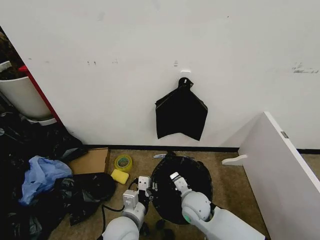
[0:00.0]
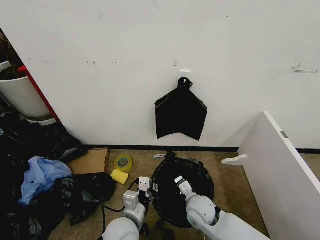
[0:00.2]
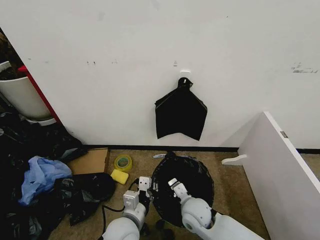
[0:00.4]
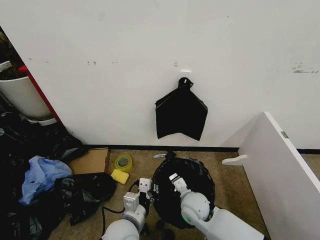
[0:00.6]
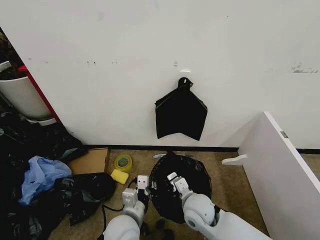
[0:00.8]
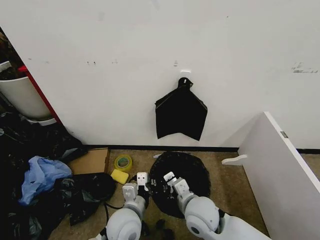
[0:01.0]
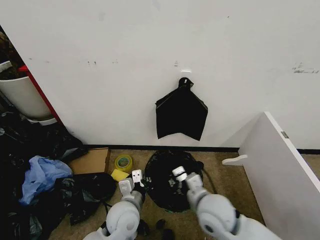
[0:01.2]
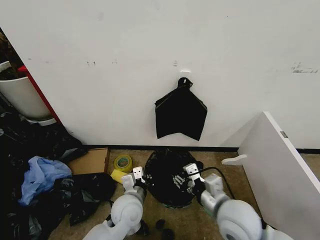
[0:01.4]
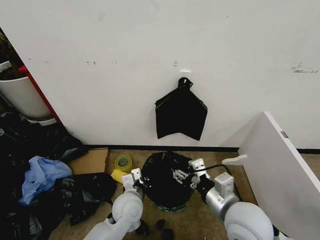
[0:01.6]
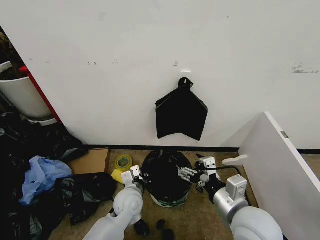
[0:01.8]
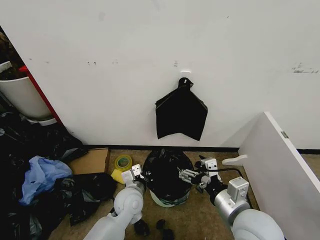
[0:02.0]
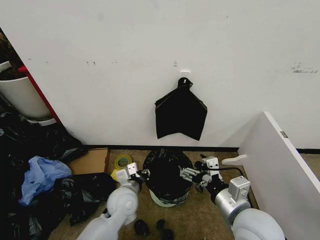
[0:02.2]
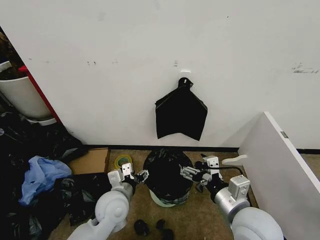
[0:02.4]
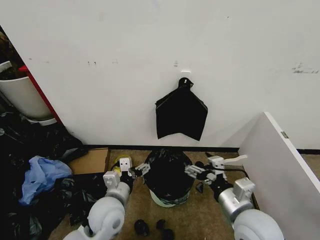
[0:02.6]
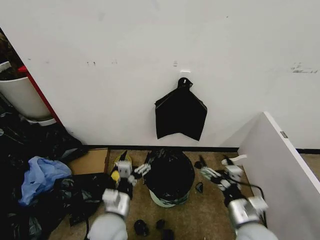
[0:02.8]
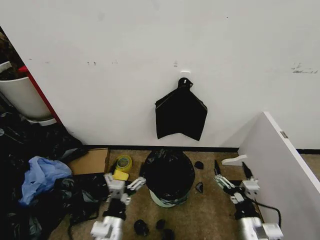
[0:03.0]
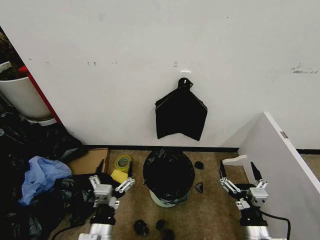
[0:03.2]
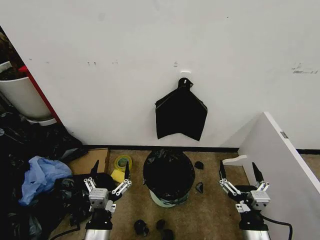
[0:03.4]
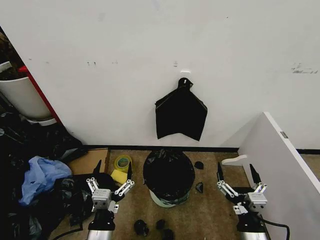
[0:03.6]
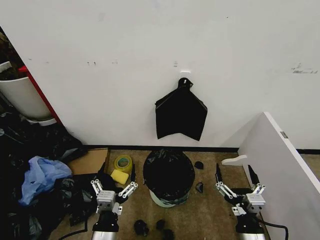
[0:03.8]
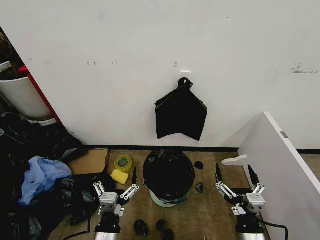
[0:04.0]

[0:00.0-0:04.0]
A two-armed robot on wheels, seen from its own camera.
Task of the whole recording: Place the garbage bag over the trash bin.
0:00.0 to 0:01.4: The left gripper is displaced forward by approximately 5 cm. The right gripper heads upward, backward and to the right, covering roughly 15 cm, and opens.
0:01.4 to 0:02.6: The left gripper ends up approximately 5 cm from where it was, and opens its fingers, while the right gripper opens its fingers.
0:02.6 to 0:04.0: The left gripper shifts about 15 cm backward; the right gripper is displaced downward and backward by approximately 15 cm.

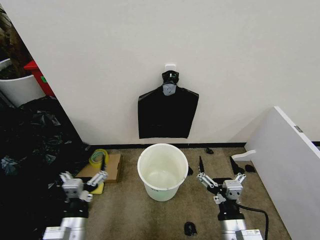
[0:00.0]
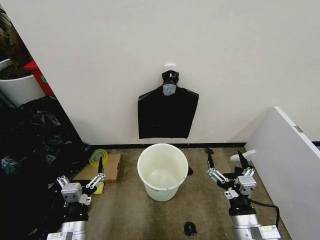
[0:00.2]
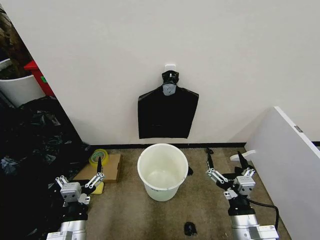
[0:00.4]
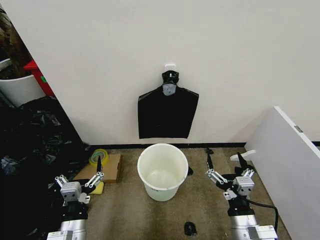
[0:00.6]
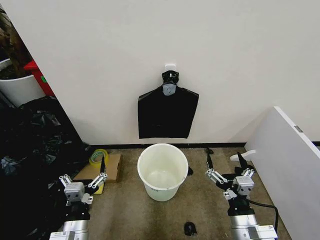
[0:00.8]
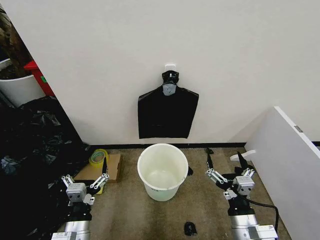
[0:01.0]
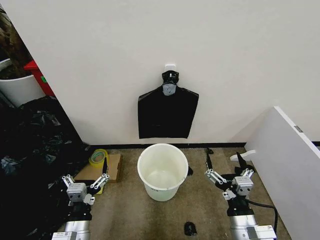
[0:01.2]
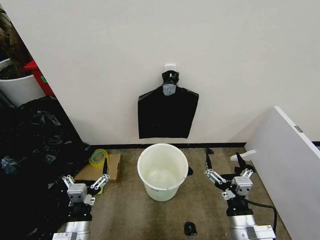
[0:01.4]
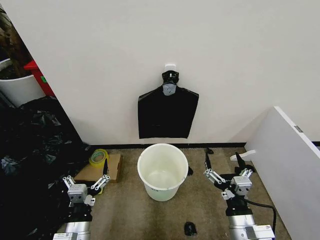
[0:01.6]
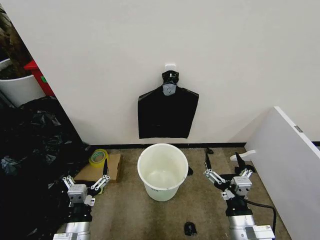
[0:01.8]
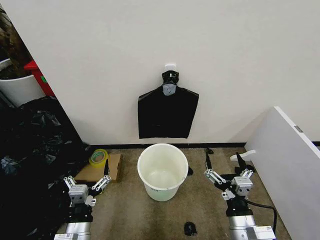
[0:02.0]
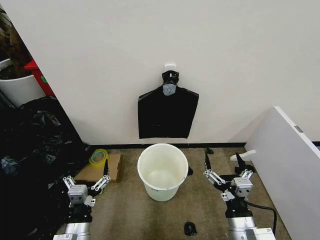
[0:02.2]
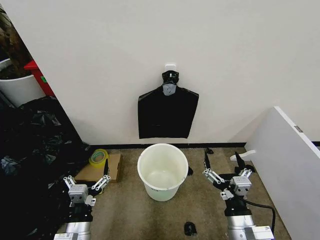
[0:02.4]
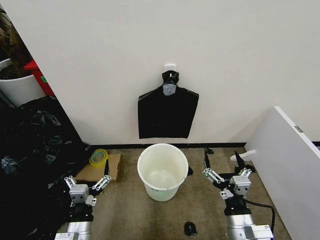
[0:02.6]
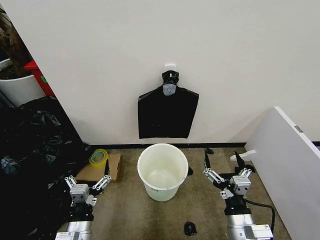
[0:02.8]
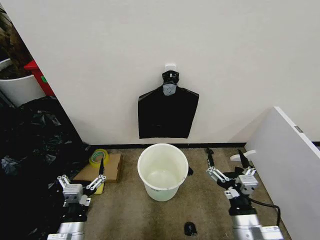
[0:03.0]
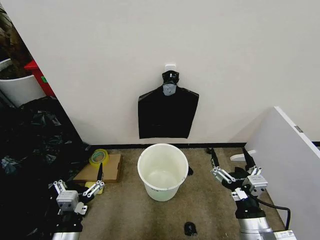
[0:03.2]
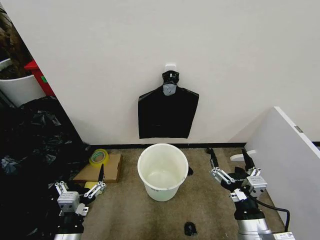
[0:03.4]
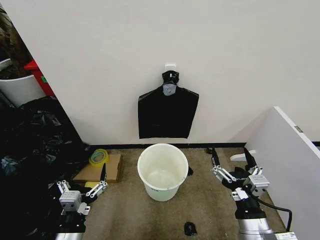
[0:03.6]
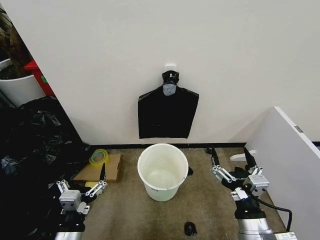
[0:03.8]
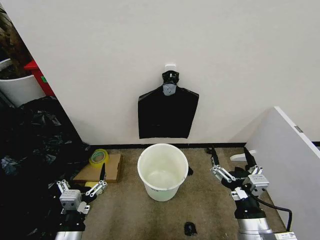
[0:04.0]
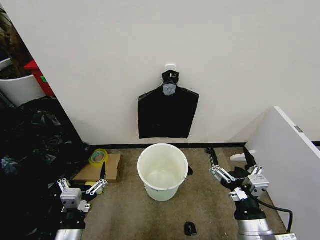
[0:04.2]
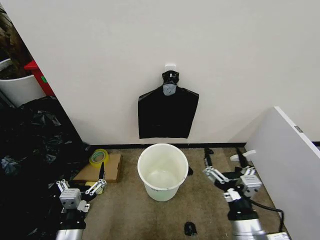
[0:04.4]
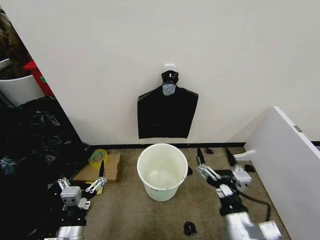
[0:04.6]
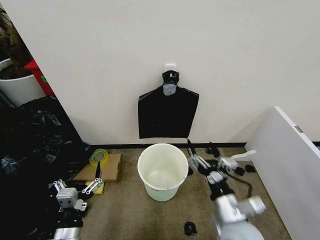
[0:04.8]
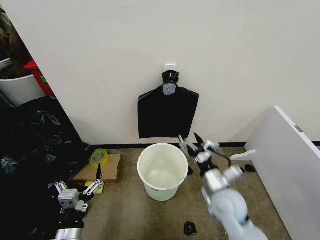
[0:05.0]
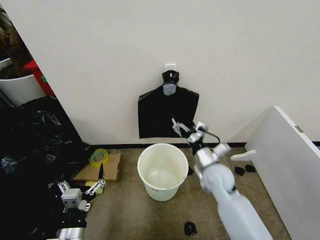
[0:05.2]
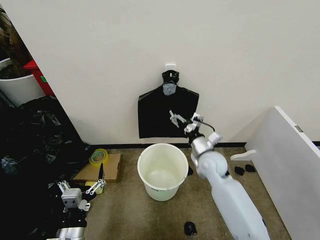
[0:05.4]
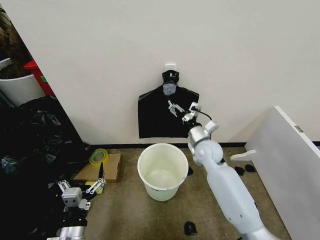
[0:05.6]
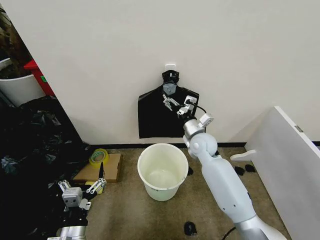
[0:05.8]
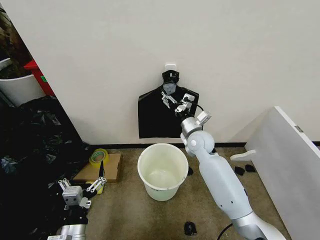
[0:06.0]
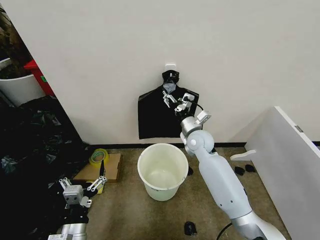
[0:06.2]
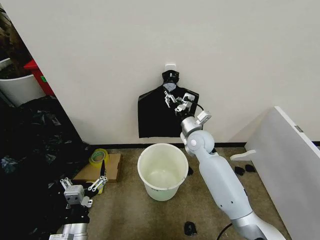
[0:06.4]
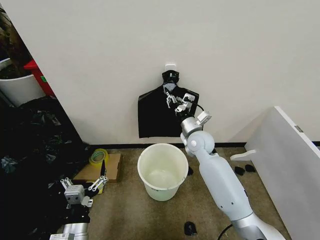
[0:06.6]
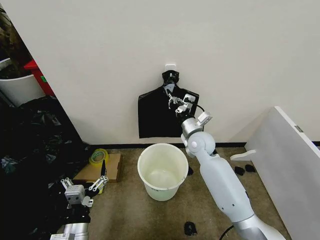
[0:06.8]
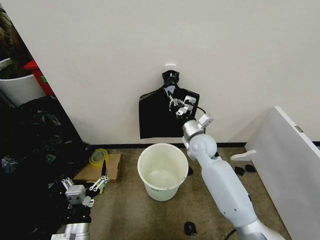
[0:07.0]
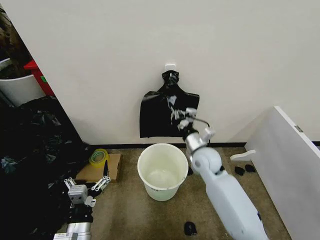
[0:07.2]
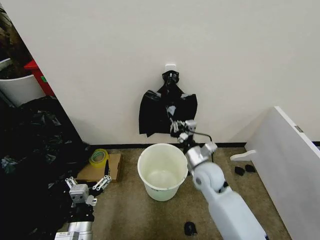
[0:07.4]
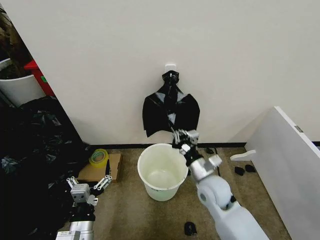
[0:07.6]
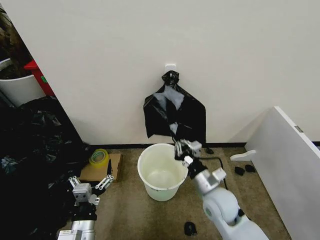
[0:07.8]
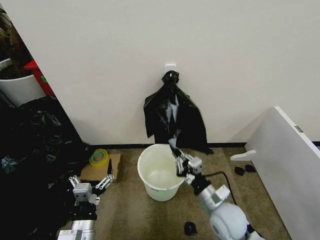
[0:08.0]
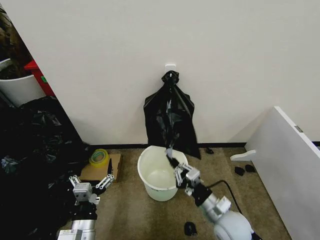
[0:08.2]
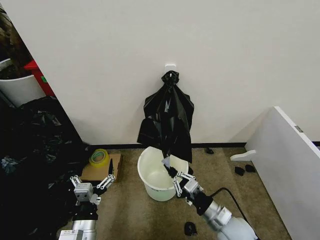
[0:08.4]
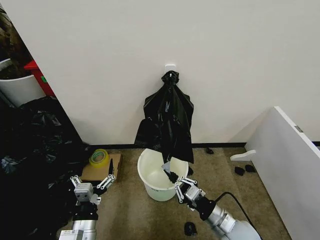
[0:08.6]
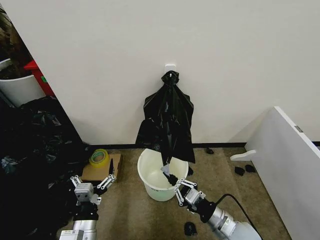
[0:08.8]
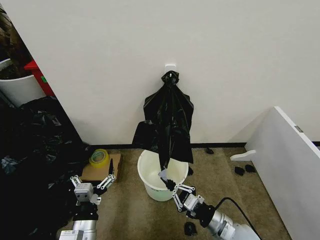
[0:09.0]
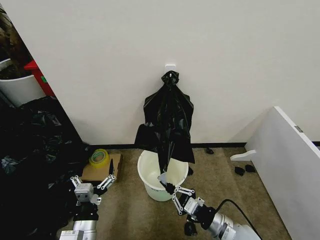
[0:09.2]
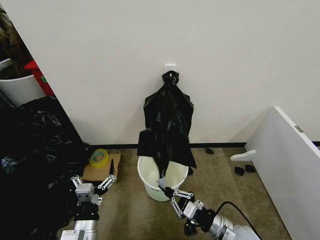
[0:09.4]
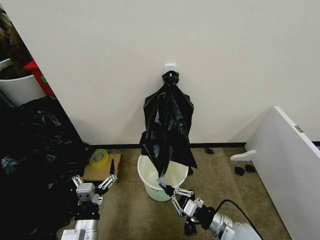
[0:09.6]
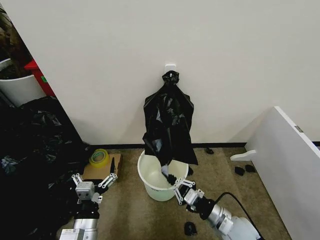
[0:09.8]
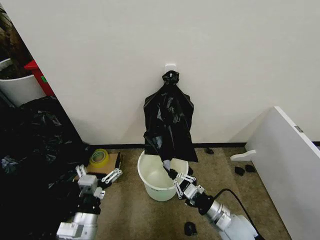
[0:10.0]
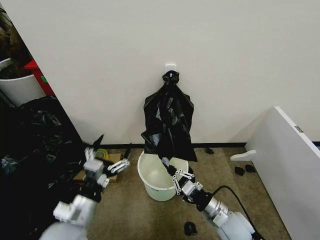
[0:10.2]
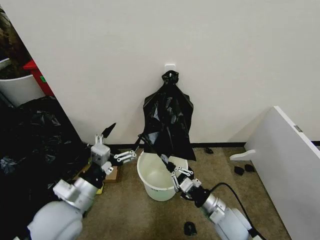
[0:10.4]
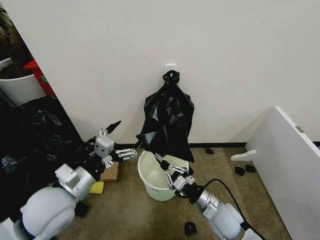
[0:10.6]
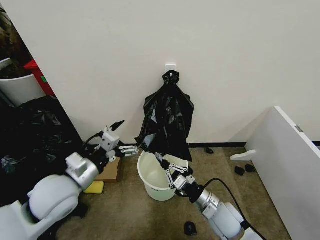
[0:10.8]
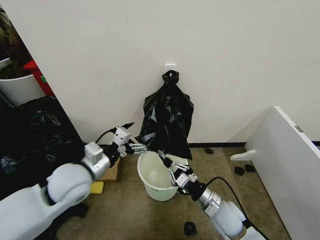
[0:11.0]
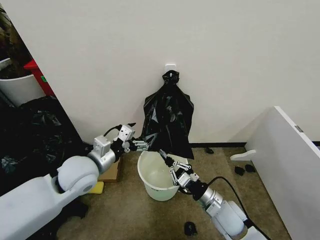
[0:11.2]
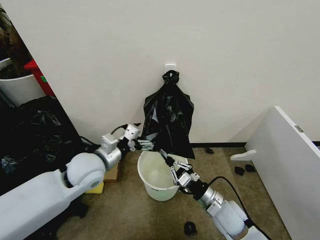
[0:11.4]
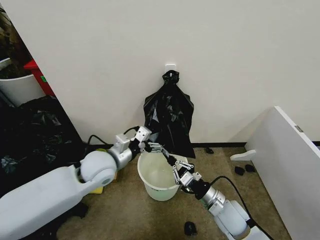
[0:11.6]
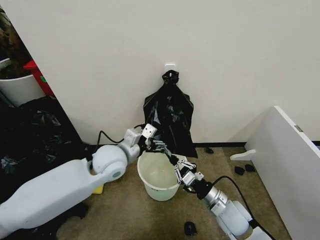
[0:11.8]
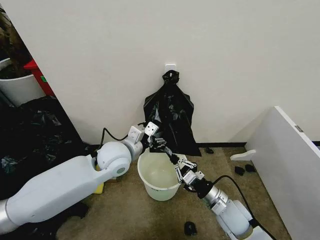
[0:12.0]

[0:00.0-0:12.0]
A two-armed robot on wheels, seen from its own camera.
Task of the whole recording: Place the garbage bag over the trash bin.
0:01.6 to 0:03.0: Neither gripper changes place.
0:03.0 to 0:04.4: The grippers move only a little.
0:04.4 to 0:06.0: The right gripper heads forward, covering some 35 cm.
0:06.0 to 0:07.6: The right gripper travels backward by approximately 15 cm, and closes.
0:07.6 to 0:09.0: The right gripper shifts approximately 15 cm backward, downward and to the right.
0:09.0 to 0:10.4: The right gripper changes place by some 5 cm, while the left gripper shifts some 15 cm upward and forward.
0:10.4 to 0:12.0: The left gripper travels forward and to the right by about 20 cm.

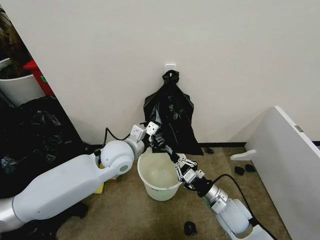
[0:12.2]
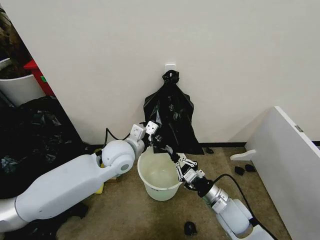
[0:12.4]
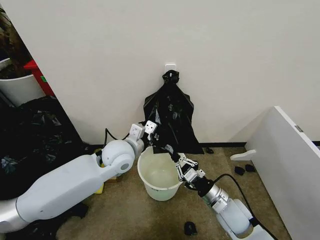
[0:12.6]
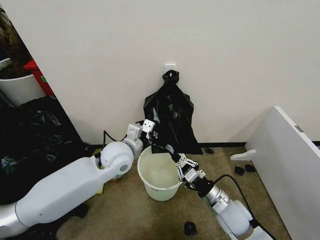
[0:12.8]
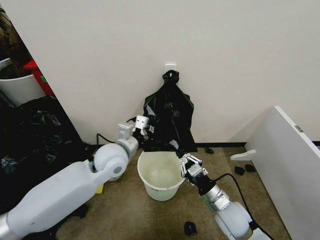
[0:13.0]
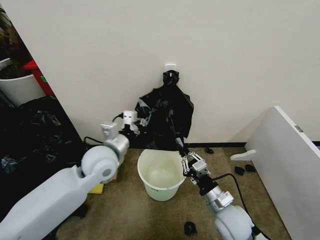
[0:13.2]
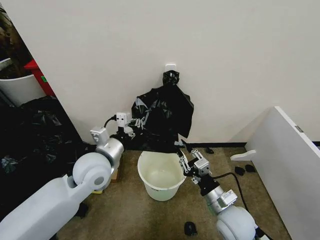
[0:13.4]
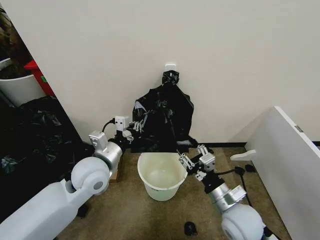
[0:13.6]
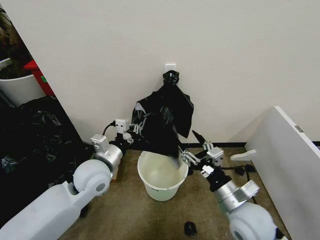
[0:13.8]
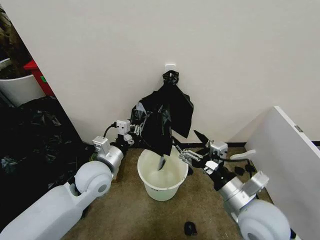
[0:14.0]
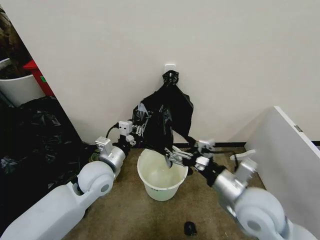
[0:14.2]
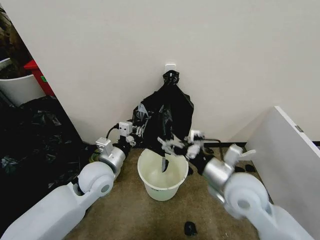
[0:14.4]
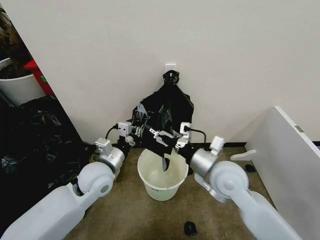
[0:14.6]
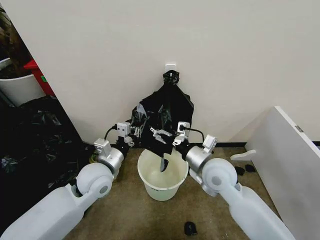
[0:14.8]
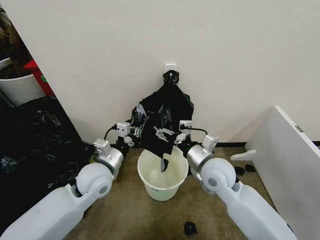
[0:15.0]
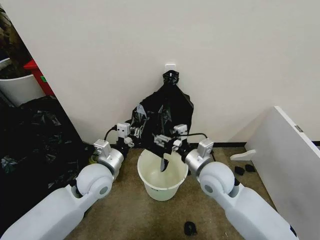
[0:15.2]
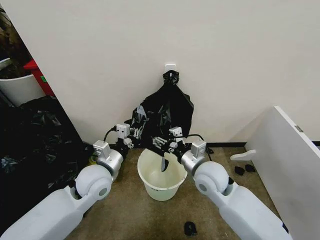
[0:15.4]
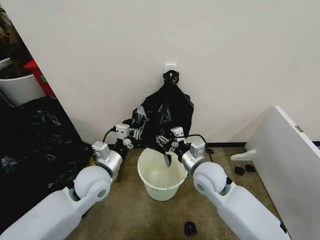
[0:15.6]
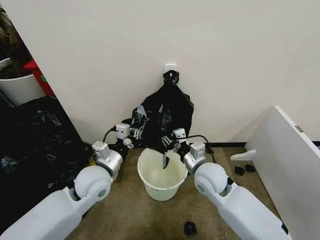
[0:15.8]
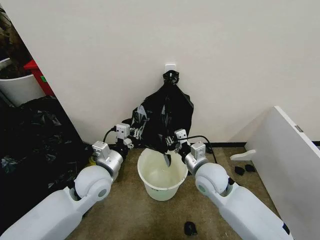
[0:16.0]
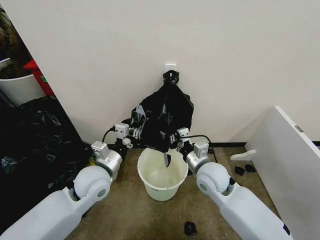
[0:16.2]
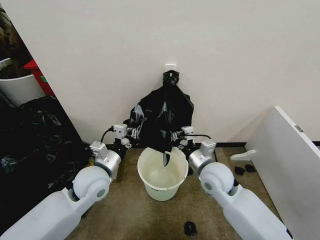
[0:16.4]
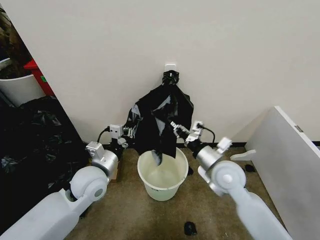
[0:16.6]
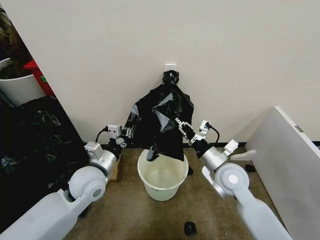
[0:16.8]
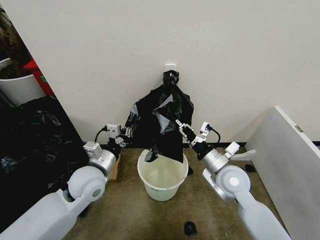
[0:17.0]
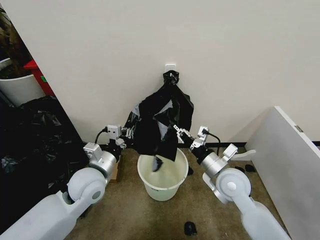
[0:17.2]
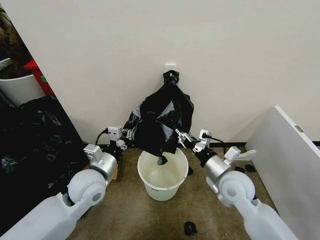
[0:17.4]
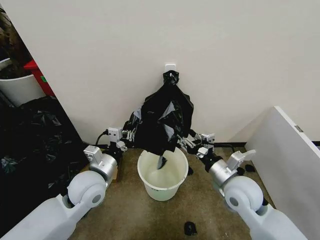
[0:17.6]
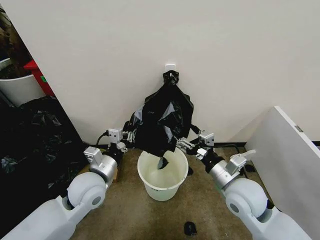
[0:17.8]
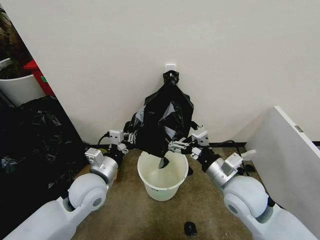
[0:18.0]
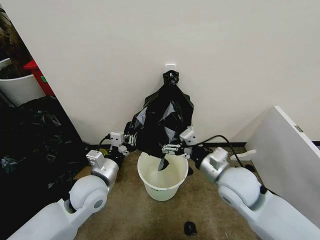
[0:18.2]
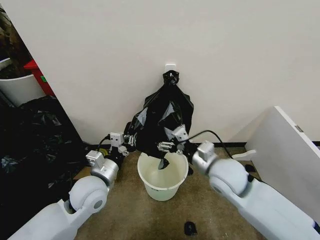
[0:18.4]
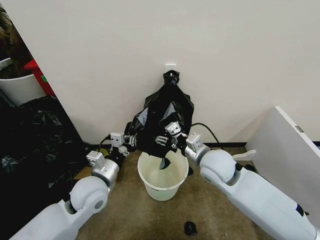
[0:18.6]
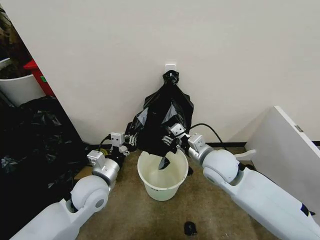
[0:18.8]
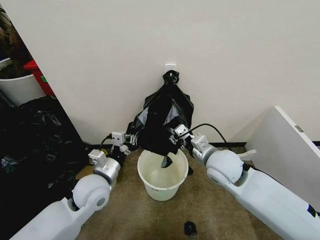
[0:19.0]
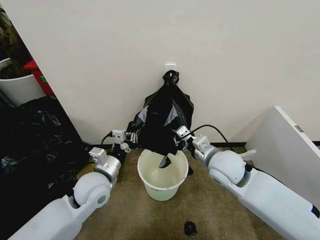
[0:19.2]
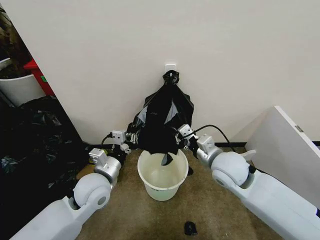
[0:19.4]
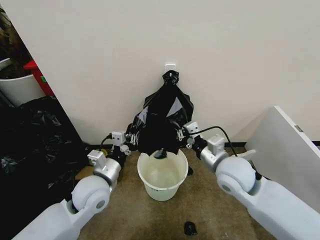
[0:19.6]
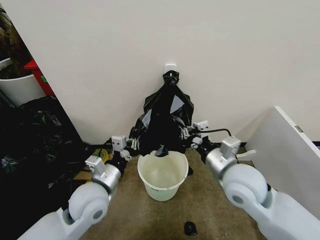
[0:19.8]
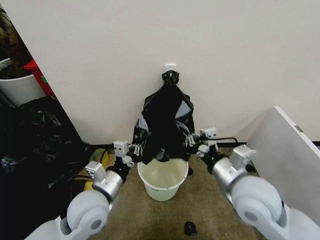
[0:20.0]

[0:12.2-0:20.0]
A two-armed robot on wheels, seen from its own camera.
Task of the whole recording: Place the garbage bag over the trash bin.
0:12.2 to 0:13.8: The right gripper shifts approximately 10 cm upward, and opens its fingers, while the left gripper heads to the left and backward, covering some 10 cm, and closes up.
0:13.8 to 0:15.4: The right gripper shifts approximately 15 cm forward and to the left.
0:15.4 to 0:16.8: The right gripper shifts some 5 cm to the right, and closes its fingers.
0:16.8 to 0:18.4: The right gripper opens.
0:18.4 to 0:20.0: The right gripper moves backward, some 5 cm, and closes.
